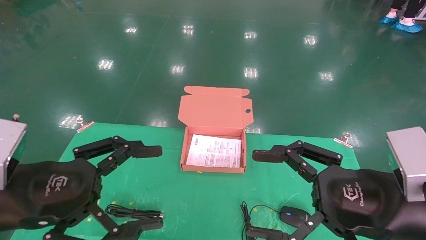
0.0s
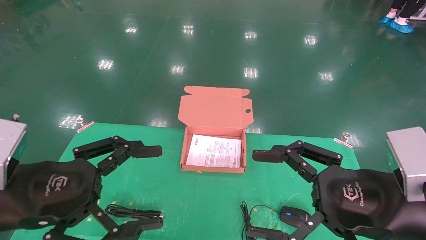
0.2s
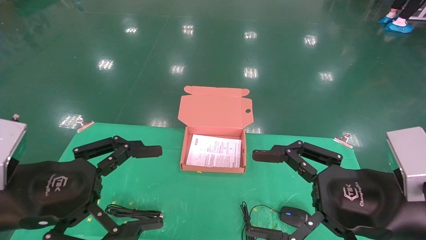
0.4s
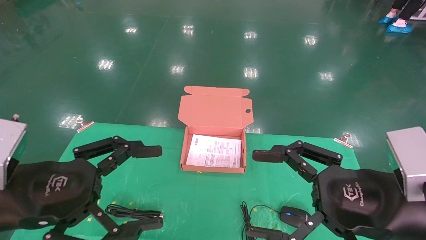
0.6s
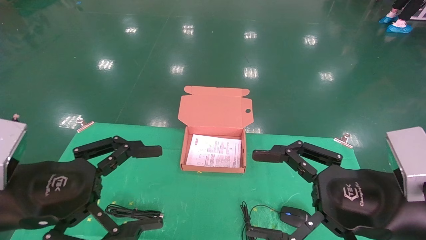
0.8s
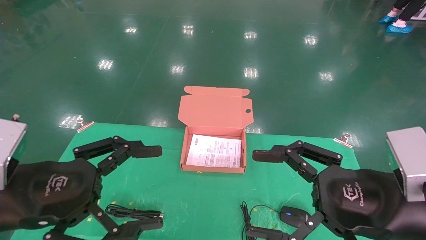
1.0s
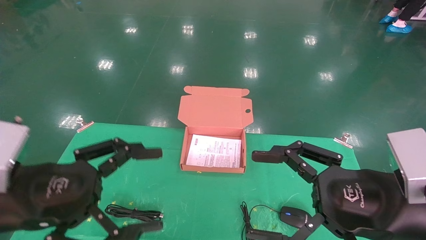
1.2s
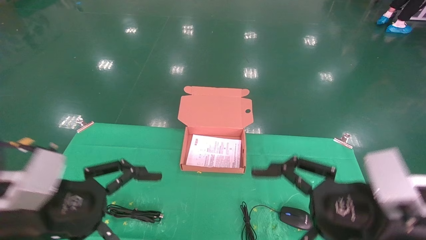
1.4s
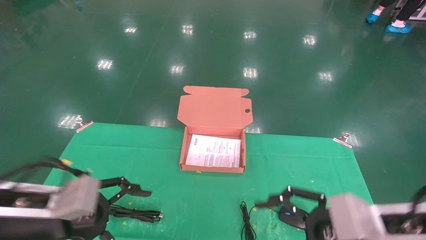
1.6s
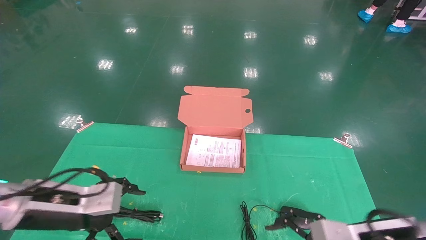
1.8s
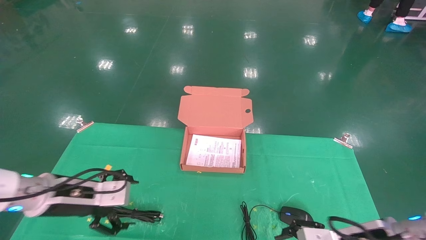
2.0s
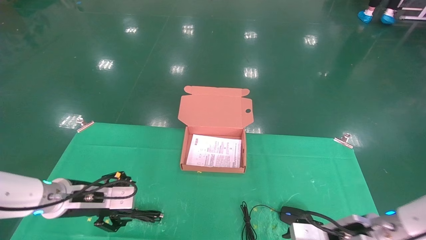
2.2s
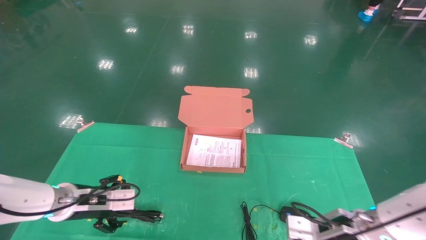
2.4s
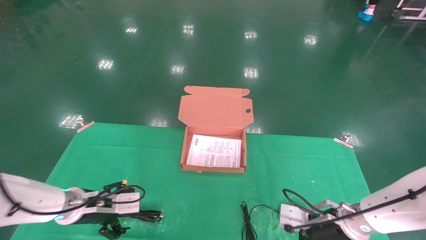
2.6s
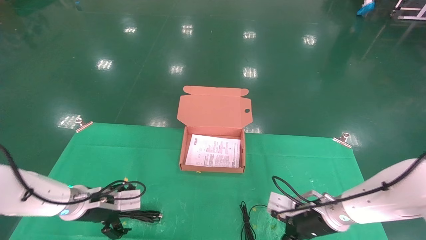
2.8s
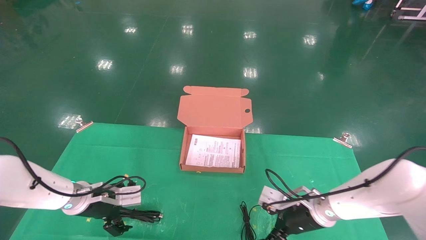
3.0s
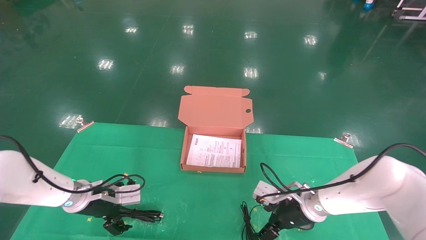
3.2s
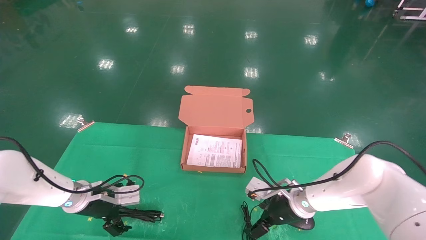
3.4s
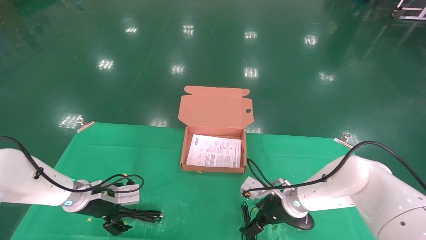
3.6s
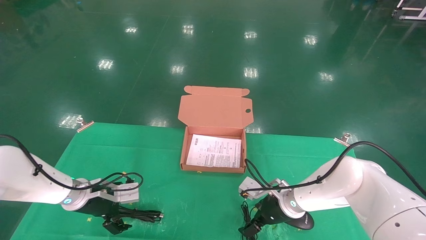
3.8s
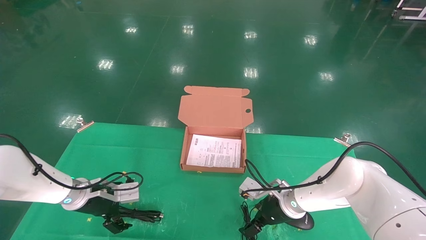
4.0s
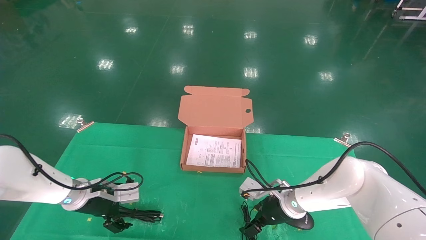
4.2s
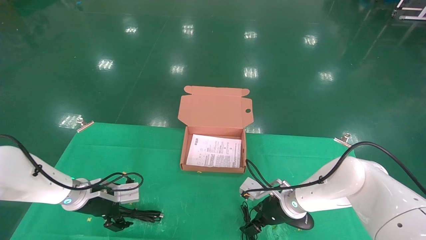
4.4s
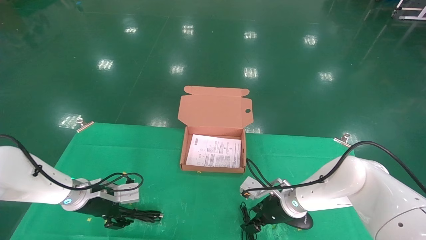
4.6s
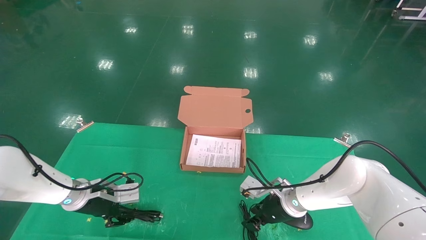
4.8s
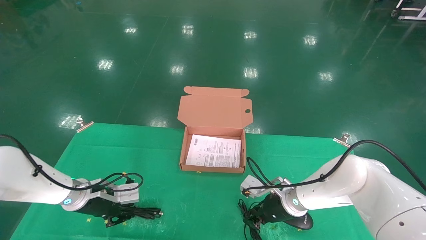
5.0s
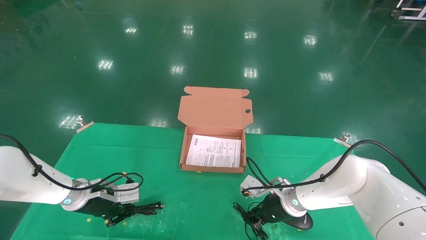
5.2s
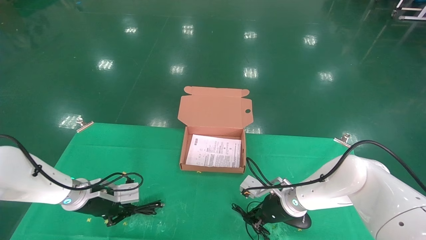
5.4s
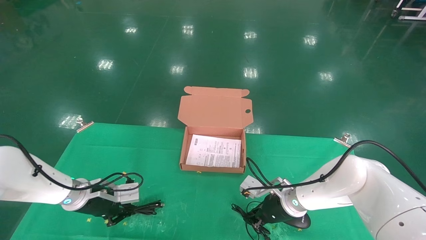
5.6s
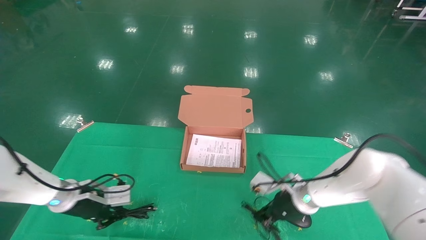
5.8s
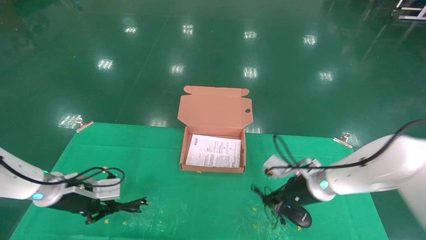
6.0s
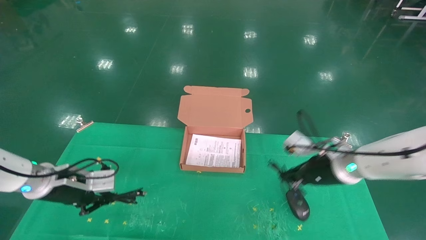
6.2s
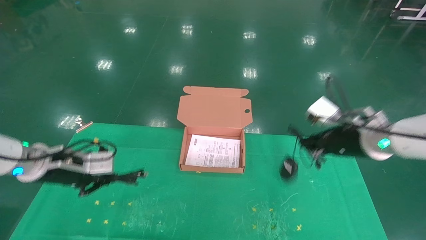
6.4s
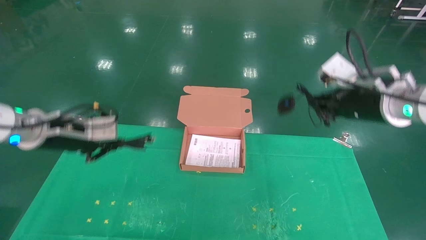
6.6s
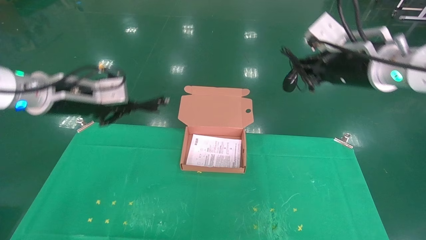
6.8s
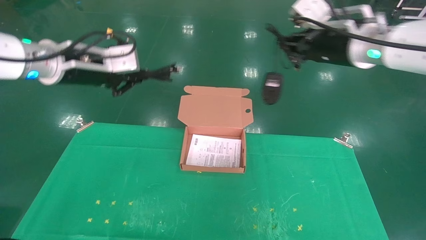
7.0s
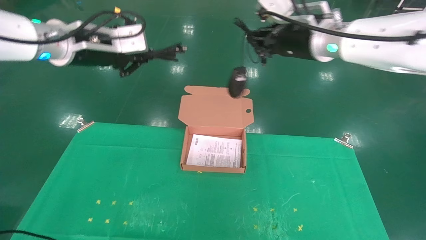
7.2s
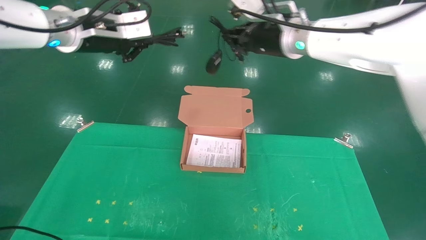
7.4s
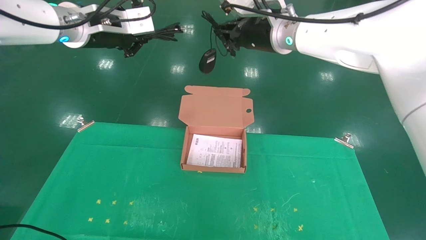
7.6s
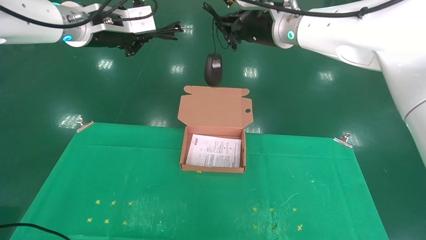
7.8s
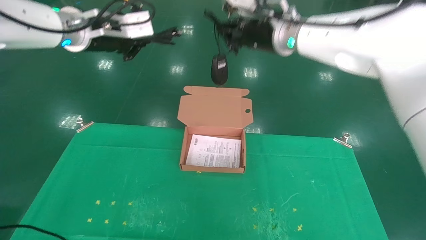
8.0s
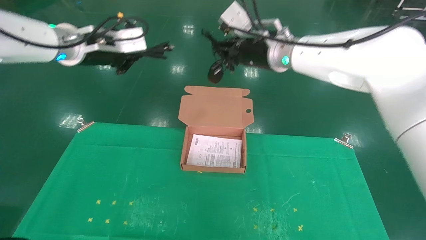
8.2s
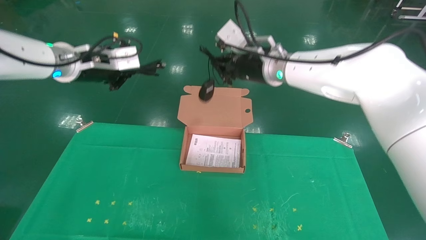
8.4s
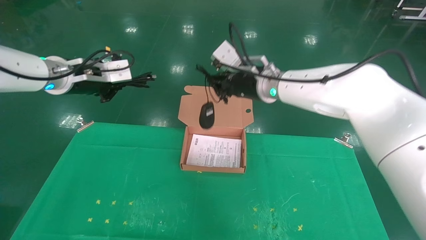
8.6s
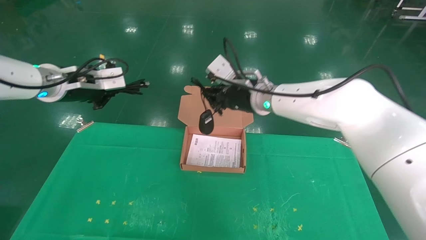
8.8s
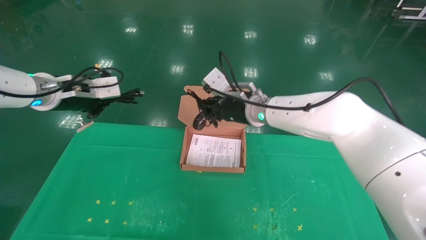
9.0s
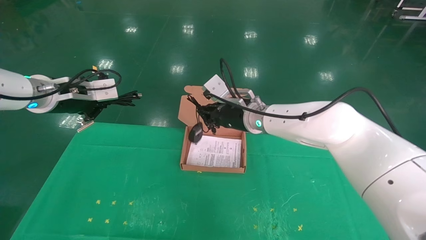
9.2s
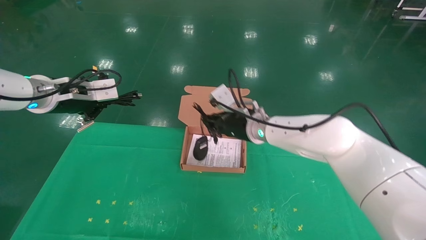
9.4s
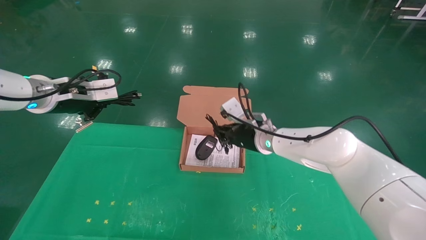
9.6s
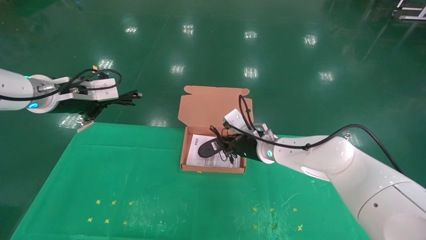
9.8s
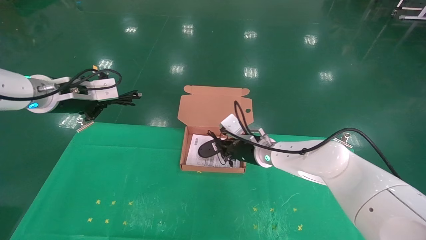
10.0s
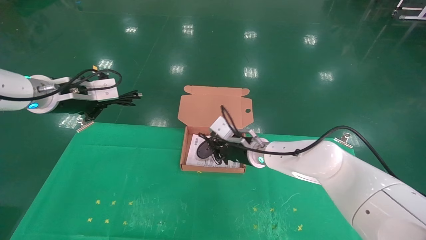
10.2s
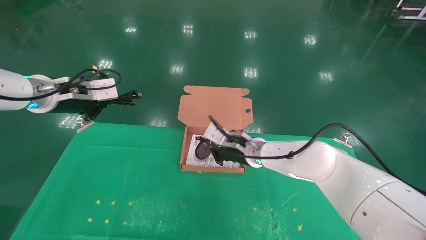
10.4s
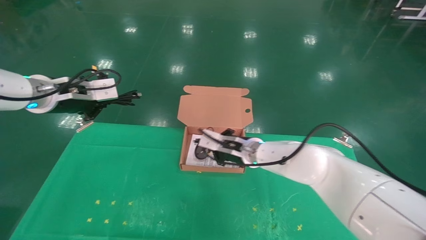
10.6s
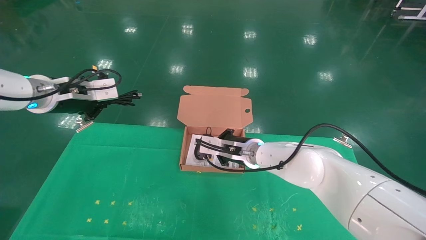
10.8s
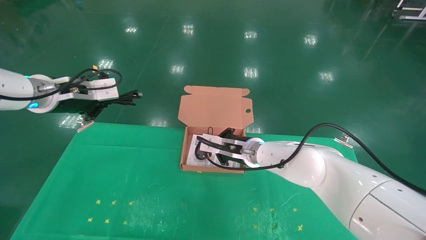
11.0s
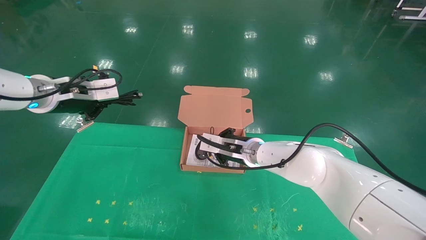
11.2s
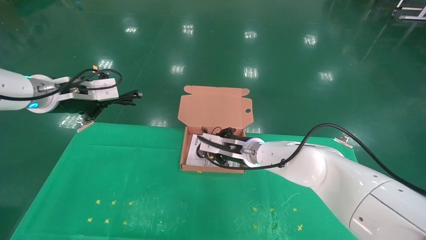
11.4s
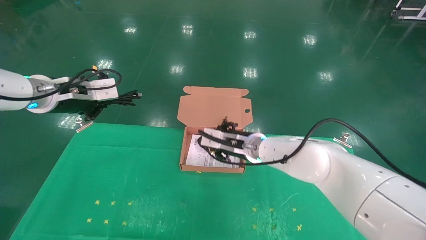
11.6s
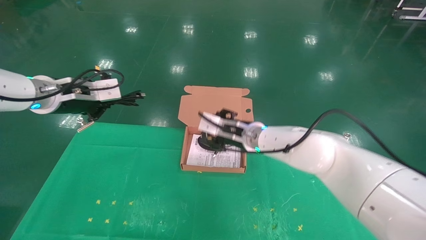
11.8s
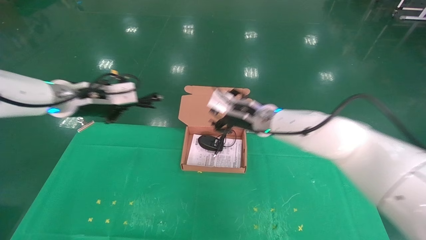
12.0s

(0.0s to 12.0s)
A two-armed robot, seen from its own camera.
Task of the whole recording: grasp data cable left put into box grasp mouse right put into box.
Step, 1.0s - 6.8s: Grab and pick up both the mouse and power cord from the accessory packaging area at the same time.
0.0s - 1.6s: The right gripper travels downward by roughly 5 cm, while the left gripper moves downward and forward, about 10 cm.
1.6s - 3.0s: Both grippers move forward and downward, some 20 cm.
3.0s - 4.4s: The right gripper goes some 5 cm to the left.
4.4s - 6.0s: The right gripper goes some 10 cm upward and to the right, and closes. The left gripper moves about 5 cm, and closes.
6.0s - 7.6s: Both grippers move upward, about 30 cm.
7.6s - 9.0s: The right gripper heads downward, covering some 15 cm; the left gripper shifts about 15 cm downward and to the left.
9.0s - 10.4s: The right gripper goes some 10 cm downward.
10.4s - 12.0s: The left gripper shifts approximately 5 cm to the right, while the right gripper shifts approximately 10 cm upward, and opens up.

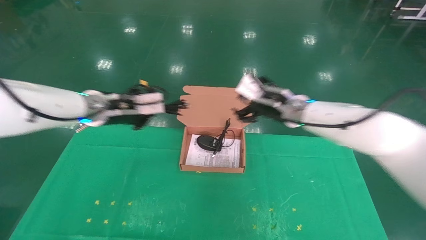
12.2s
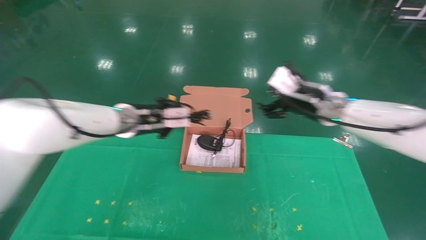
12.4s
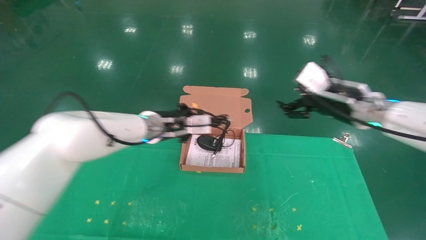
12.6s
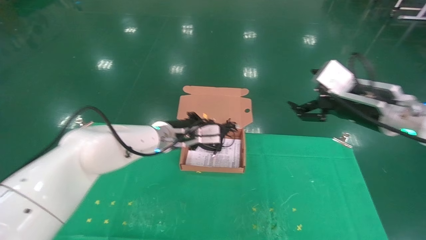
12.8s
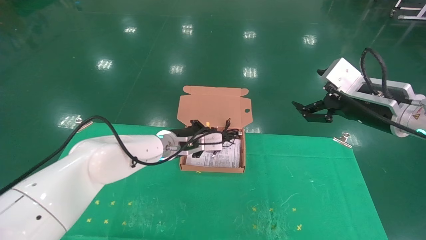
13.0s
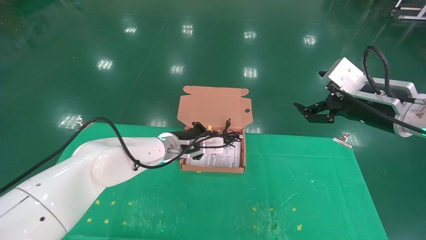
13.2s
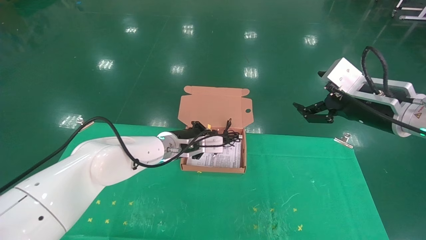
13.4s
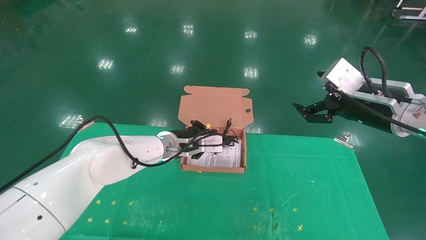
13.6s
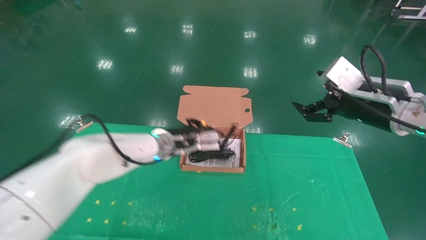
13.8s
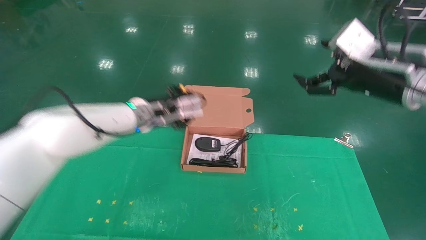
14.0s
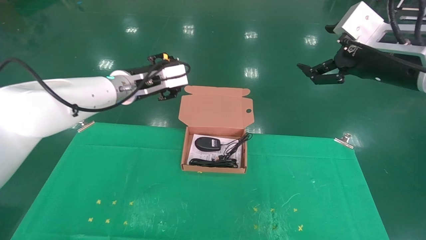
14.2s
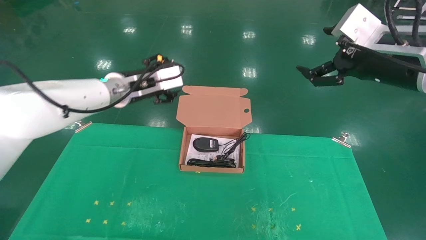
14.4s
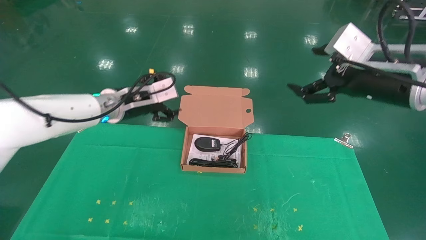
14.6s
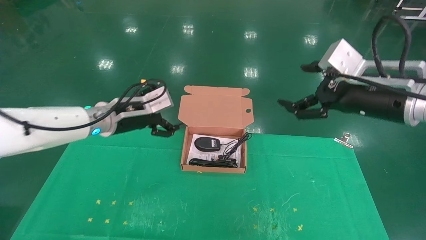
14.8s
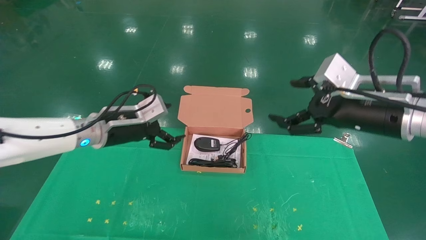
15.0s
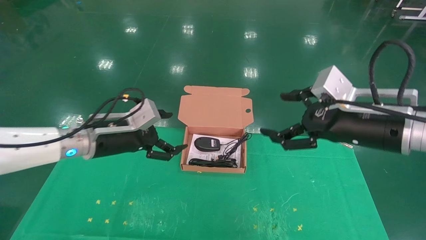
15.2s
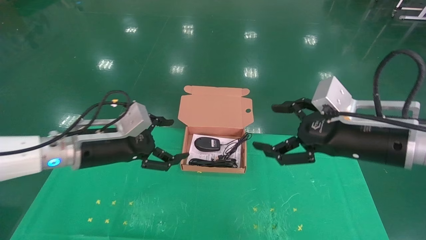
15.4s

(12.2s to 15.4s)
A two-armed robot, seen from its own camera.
Task of the whole recording: grasp data cable left put into box grasp mouse right put into box.
Step, 12.2s - 14.2s: Place the mouse and power cord into the box.
12.2s - 13.8s: The left gripper travels to the right and downward by about 10 cm, while the right gripper goes some 20 cm to the right, backward and upward.
13.8s - 15.4s: The left gripper travels to the left and backward by some 15 cm, and opens its fingers. Meanwhile the right gripper travels backward by roughly 5 cm.
